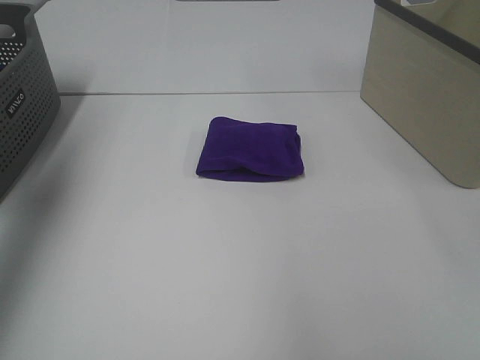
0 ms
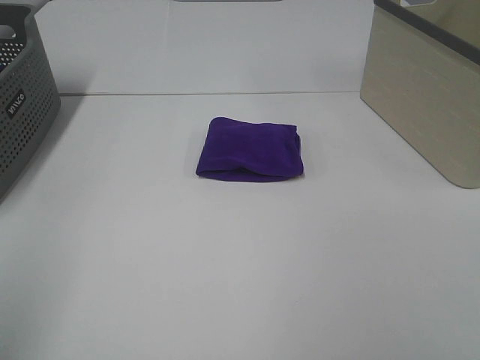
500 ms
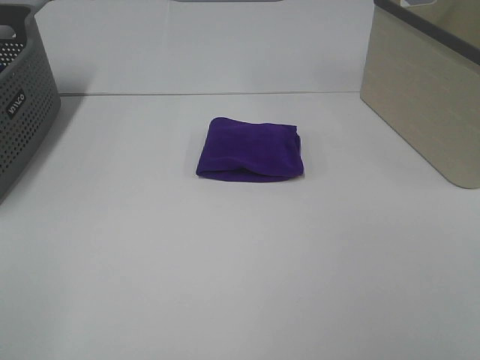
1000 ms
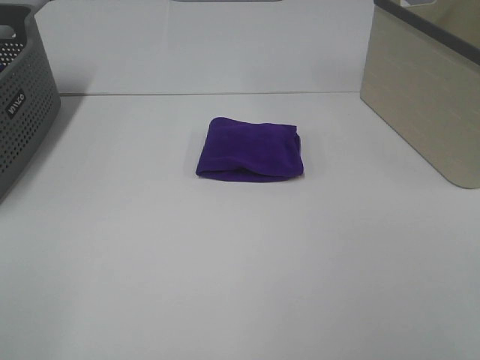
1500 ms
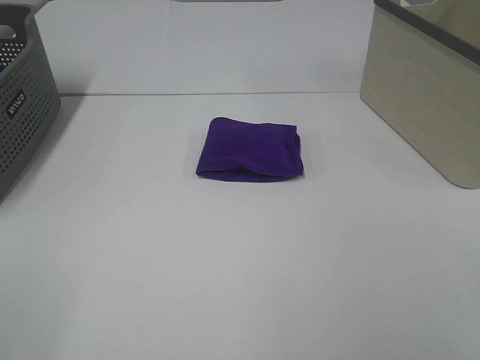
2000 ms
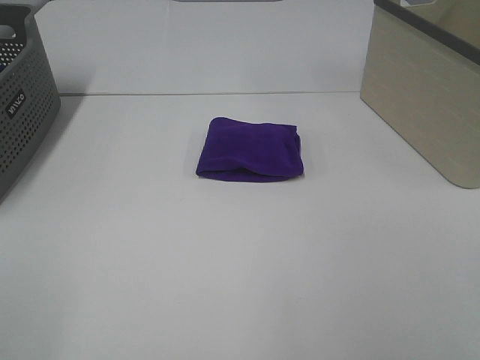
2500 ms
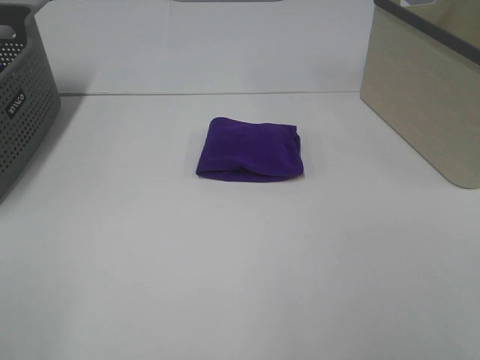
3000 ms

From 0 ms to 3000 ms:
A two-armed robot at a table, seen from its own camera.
Task of the whole recording: Fold towels.
From 0 ms to 1500 ms: The left gripper moves backward, some 30 cm.
